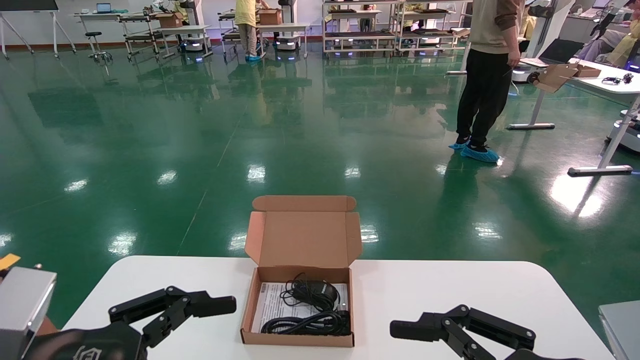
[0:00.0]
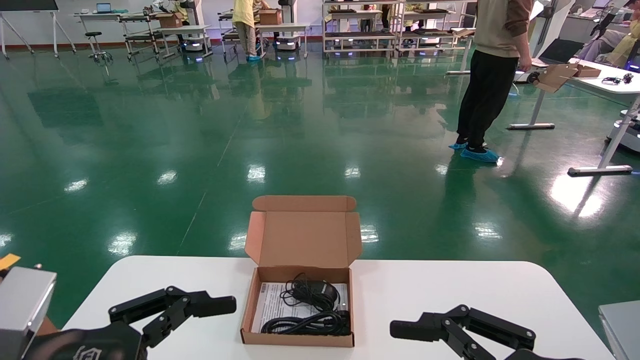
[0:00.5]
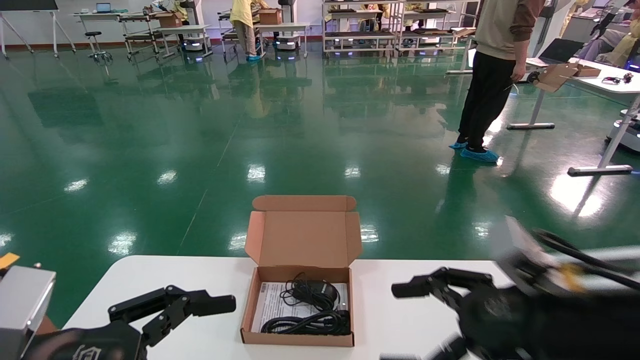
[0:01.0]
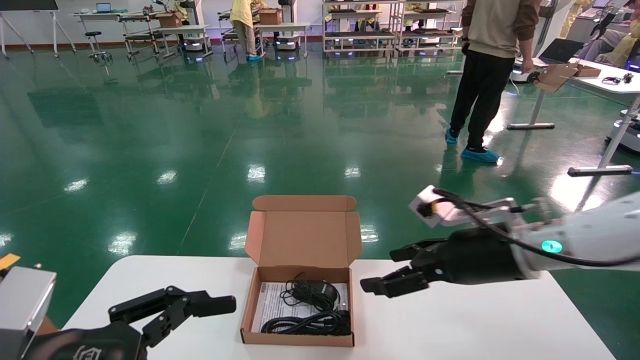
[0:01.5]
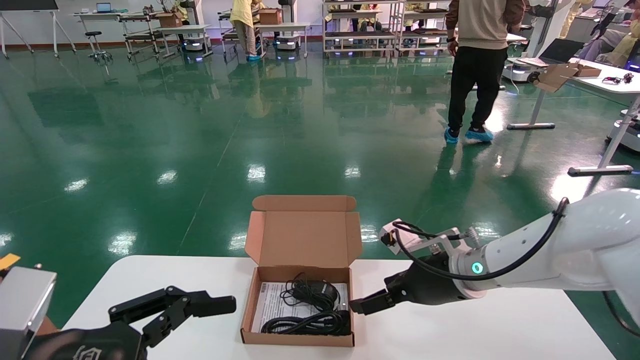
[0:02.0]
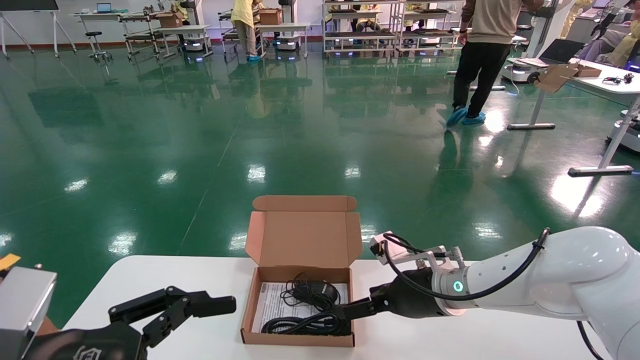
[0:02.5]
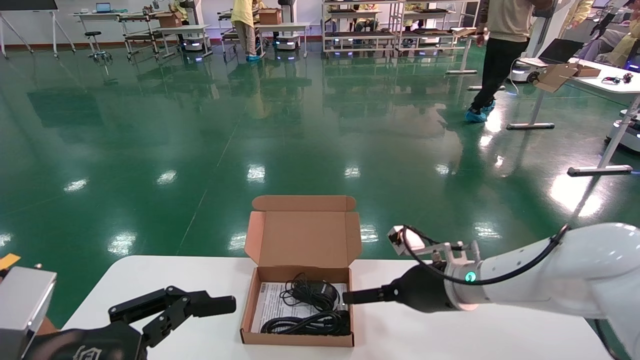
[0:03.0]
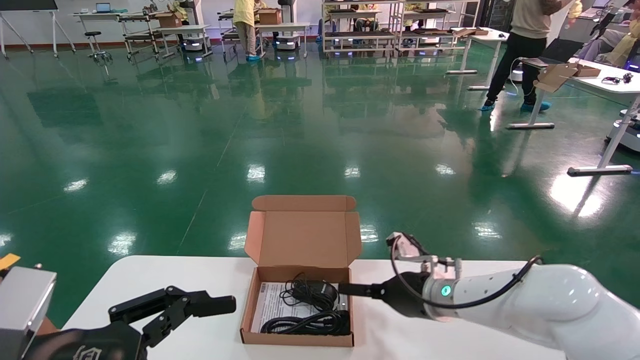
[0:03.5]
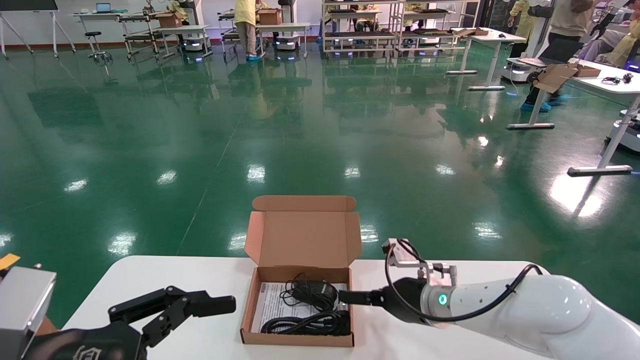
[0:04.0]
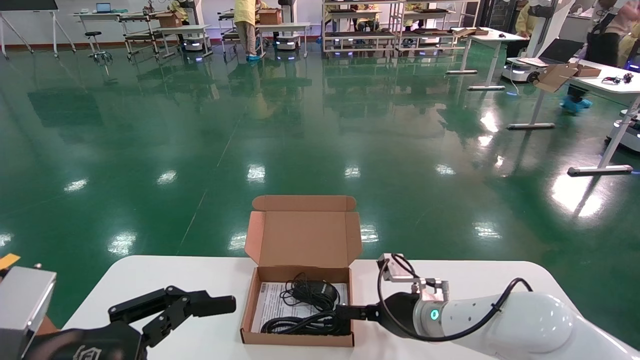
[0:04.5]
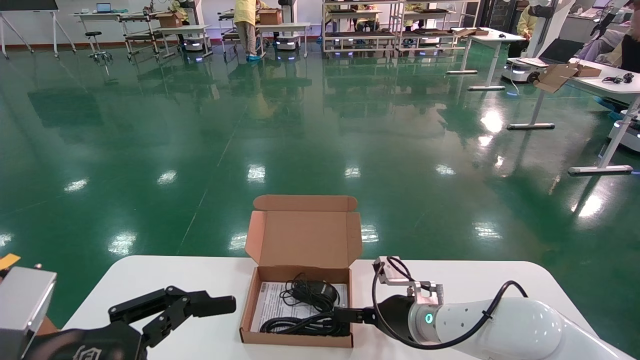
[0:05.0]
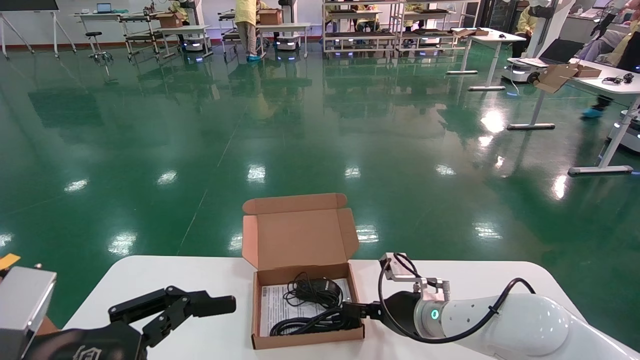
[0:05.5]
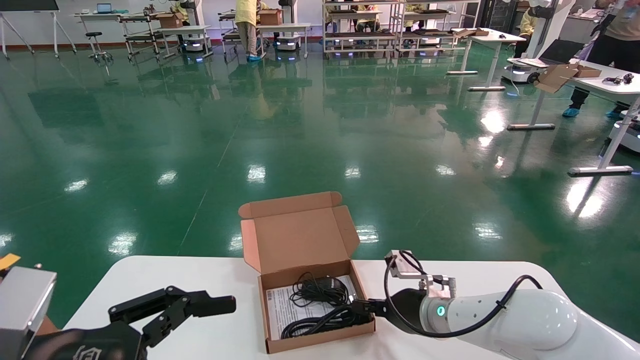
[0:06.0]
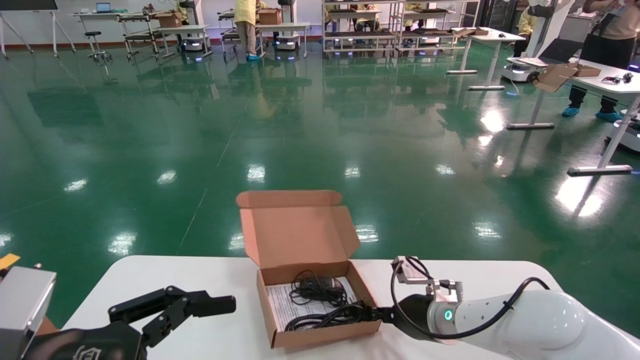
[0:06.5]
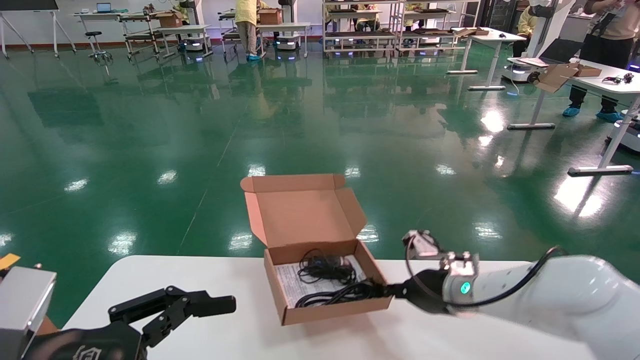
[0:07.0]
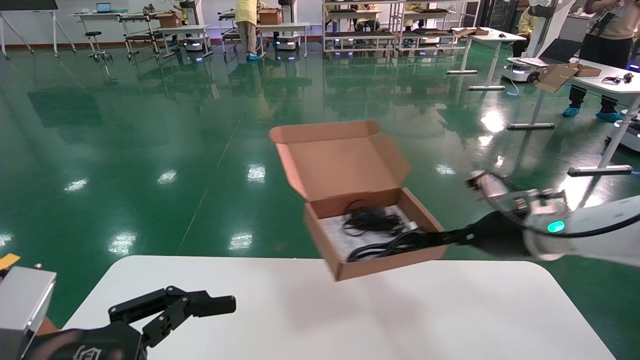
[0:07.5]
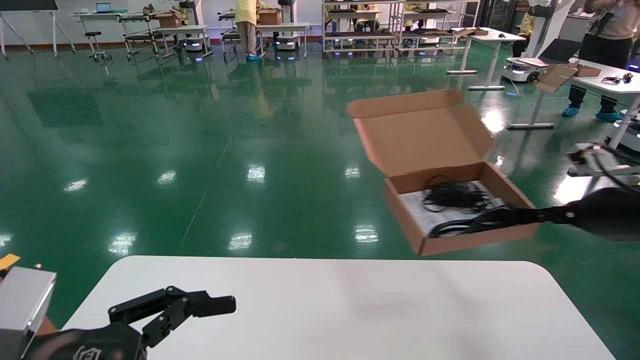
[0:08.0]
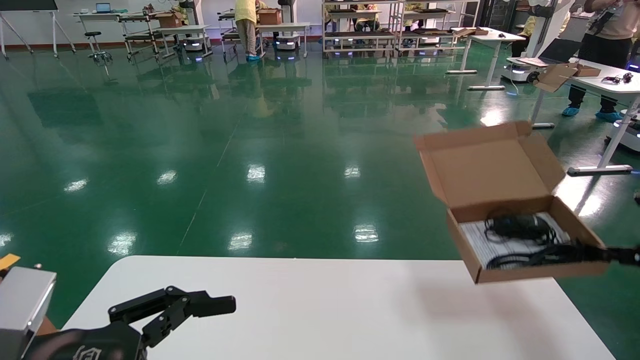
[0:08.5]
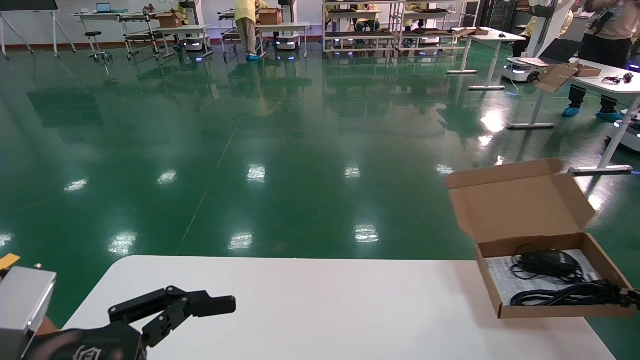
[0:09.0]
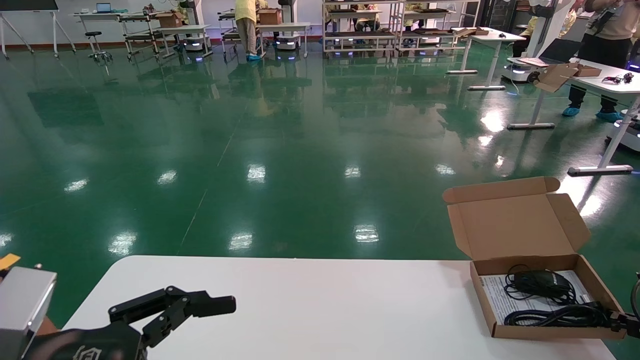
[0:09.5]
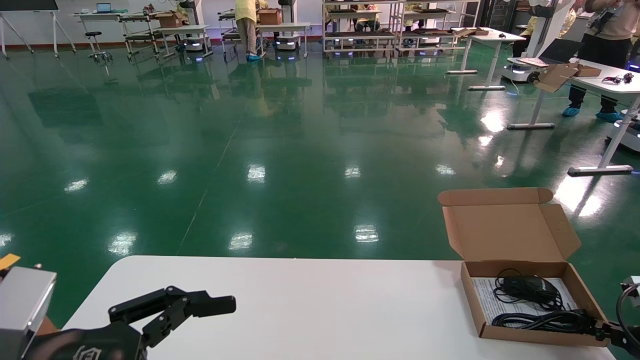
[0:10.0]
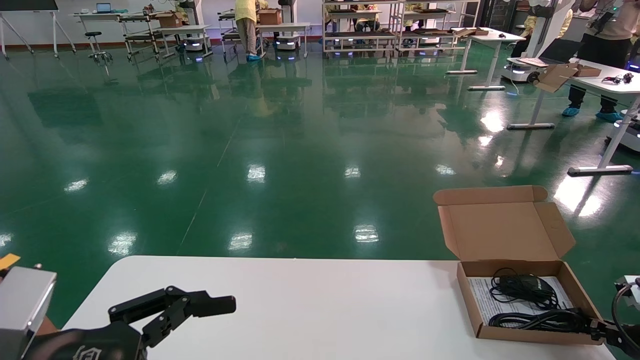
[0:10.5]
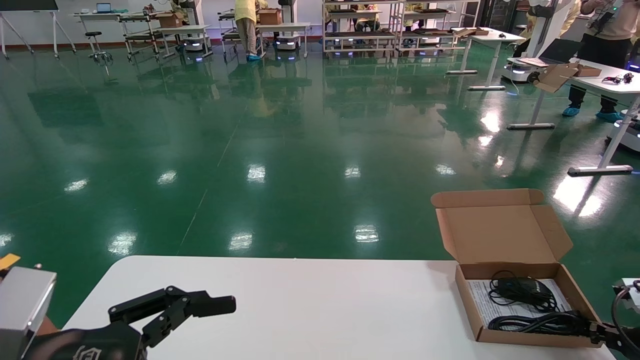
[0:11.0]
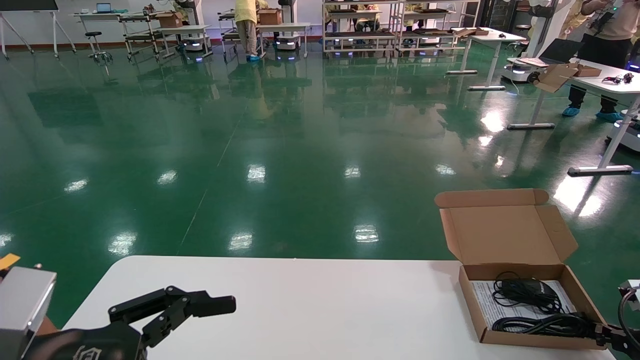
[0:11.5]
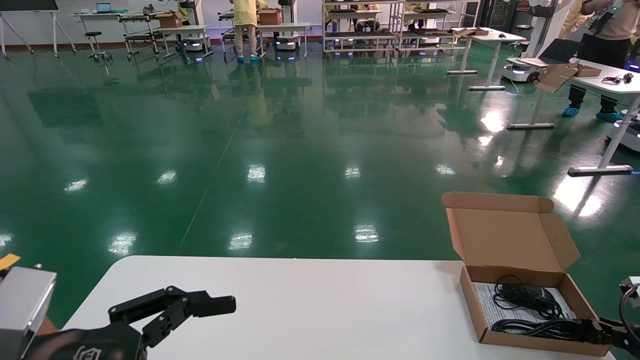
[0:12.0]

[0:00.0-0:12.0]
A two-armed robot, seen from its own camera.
Task of the whole recording: move the position of the storage box with accessories on the table.
Step, 0:01.5 to 0:06.0: Grab and pick up the open mouse box from the accessory packaging area.
0:00.0 to 0:02.0: The right gripper moves forward, approximately 25 cm.
0:02.0 to 0:04.0: The right gripper travels downward by about 5 cm.
0:04.0 to 0:06.0: The right gripper closes up.
0:06.0 to 0:08.0: The right gripper moves to the right and upward, roughly 30 cm.
0:08.0 to 0:10.0: The right gripper goes approximately 20 cm downward and to the right.
0:10.0 to 0:12.0: Neither gripper changes place.

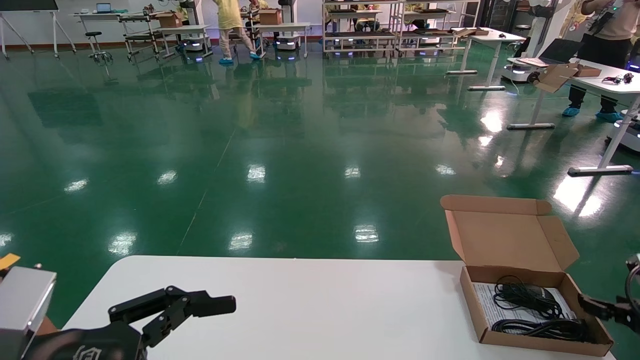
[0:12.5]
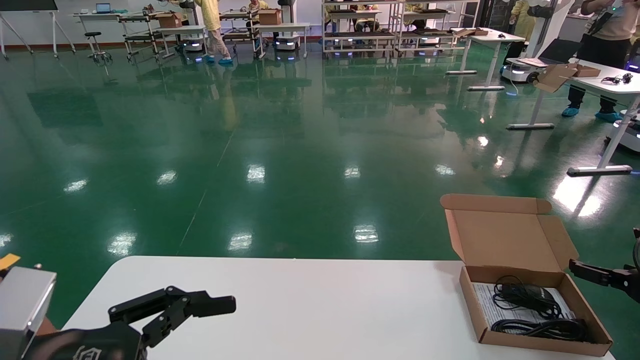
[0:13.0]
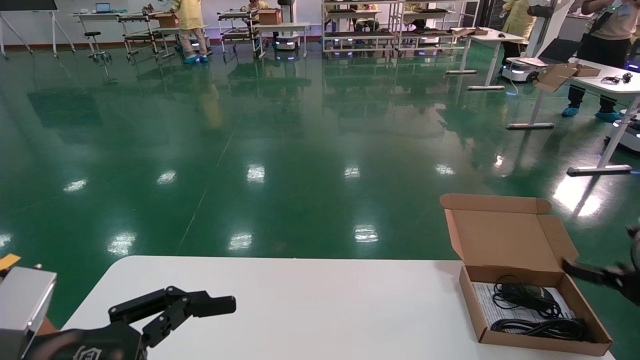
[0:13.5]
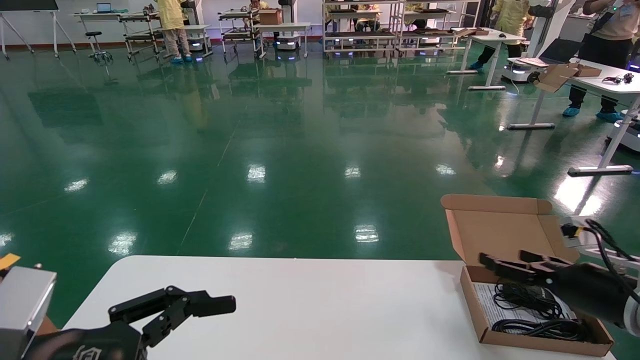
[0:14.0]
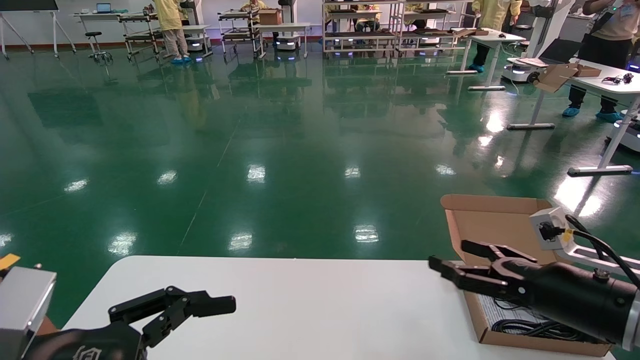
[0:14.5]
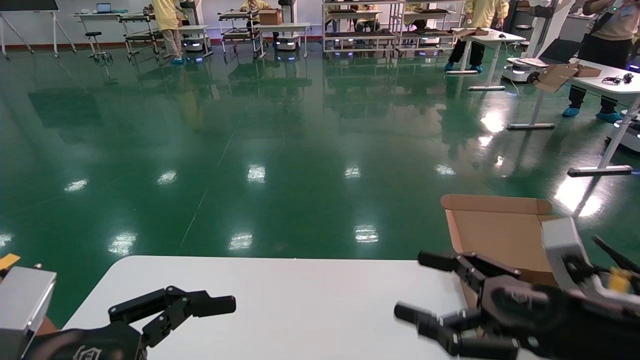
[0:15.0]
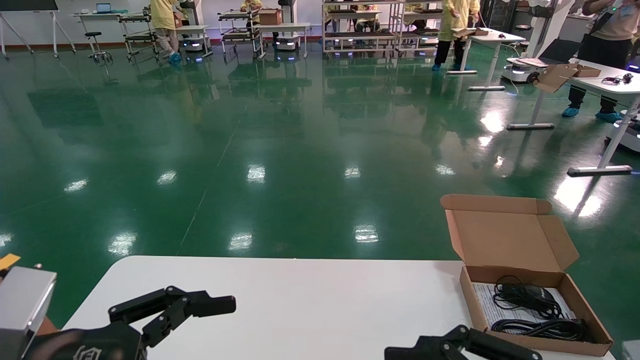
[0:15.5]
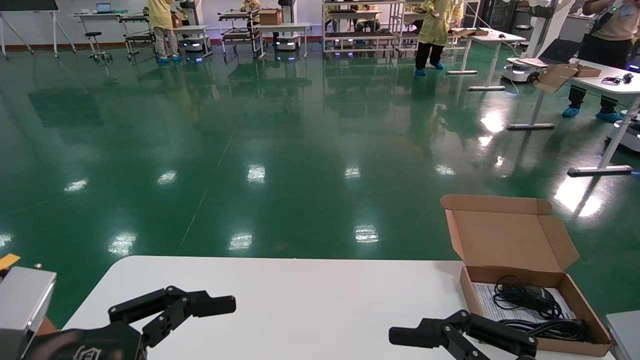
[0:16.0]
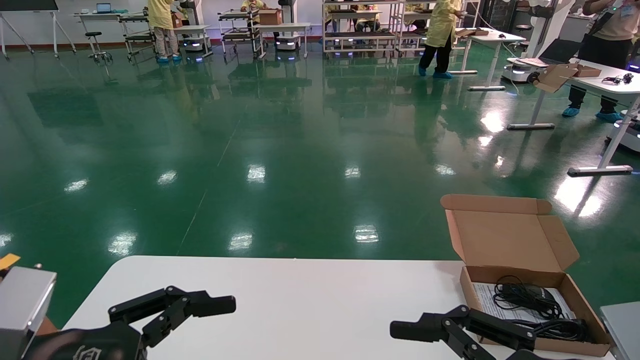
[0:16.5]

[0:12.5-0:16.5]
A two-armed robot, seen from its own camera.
Task of the whole recording: move the position of the storage box with accessories on the table.
0:12.5 to 0:14.5: The right gripper travels to the left by some 15 cm, and opens up.
0:14.5 to 0:16.5: The right gripper travels backward and to the left by some 20 cm.
